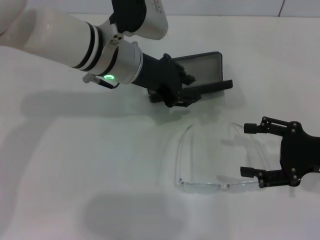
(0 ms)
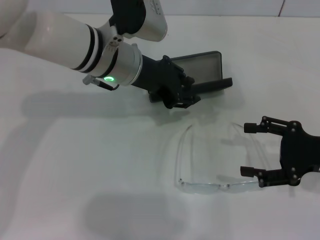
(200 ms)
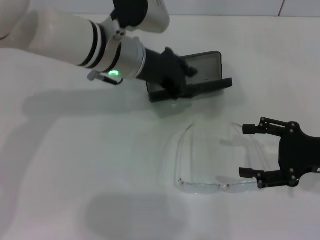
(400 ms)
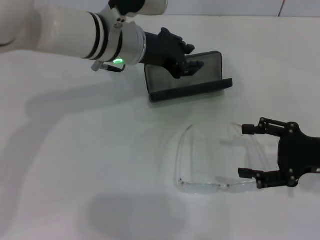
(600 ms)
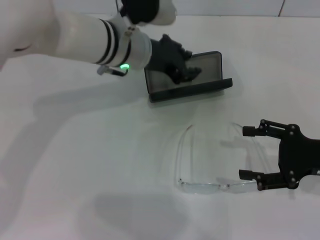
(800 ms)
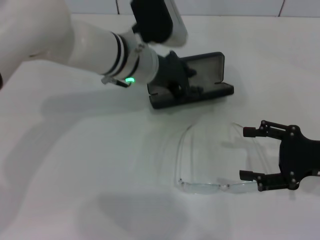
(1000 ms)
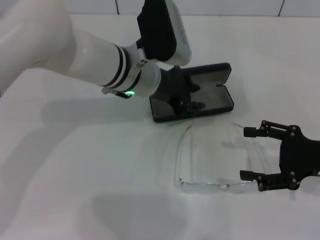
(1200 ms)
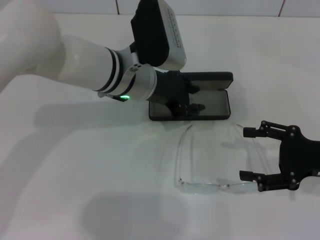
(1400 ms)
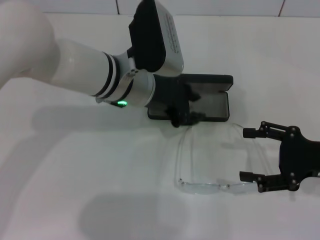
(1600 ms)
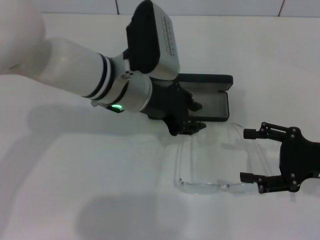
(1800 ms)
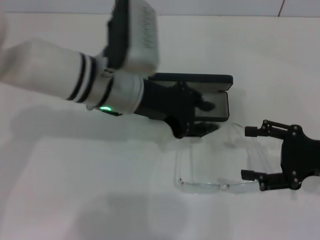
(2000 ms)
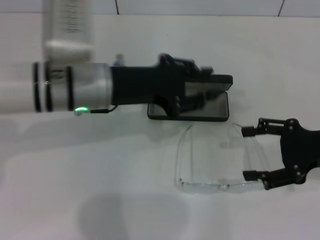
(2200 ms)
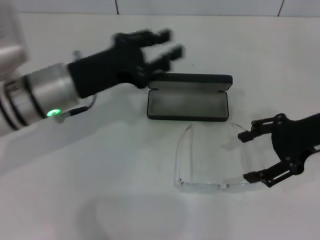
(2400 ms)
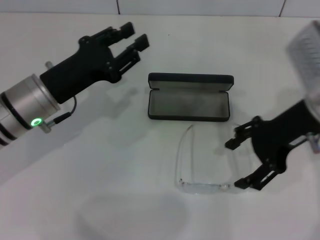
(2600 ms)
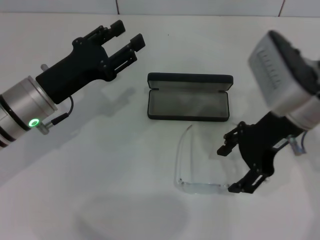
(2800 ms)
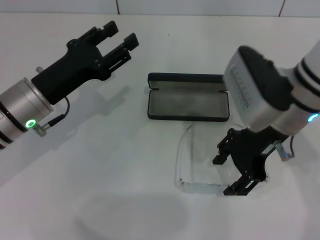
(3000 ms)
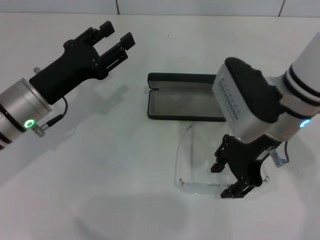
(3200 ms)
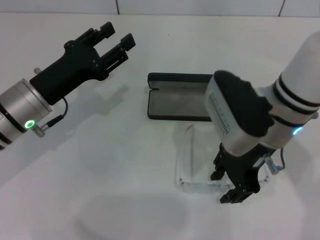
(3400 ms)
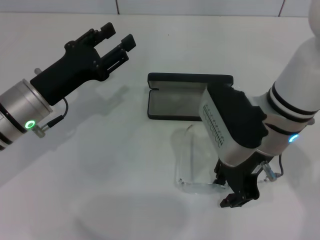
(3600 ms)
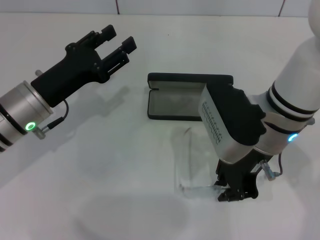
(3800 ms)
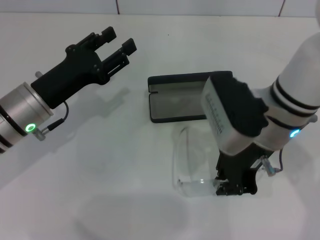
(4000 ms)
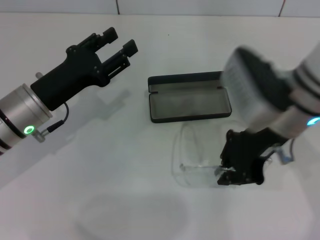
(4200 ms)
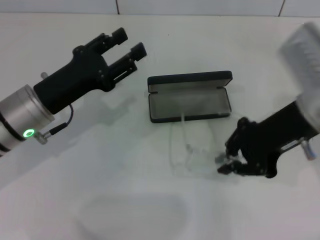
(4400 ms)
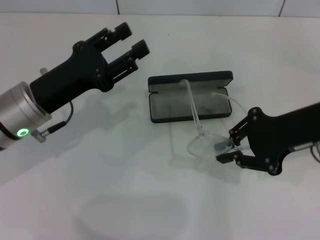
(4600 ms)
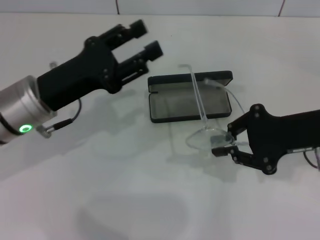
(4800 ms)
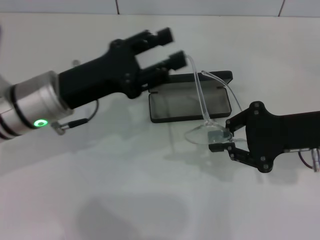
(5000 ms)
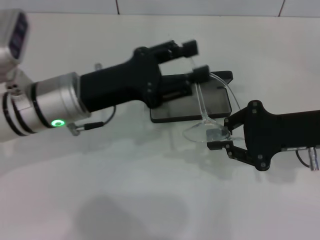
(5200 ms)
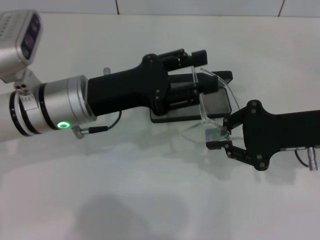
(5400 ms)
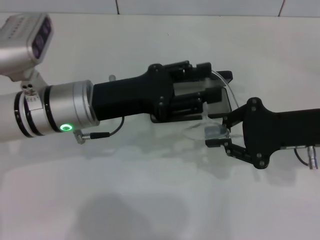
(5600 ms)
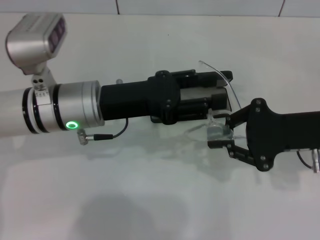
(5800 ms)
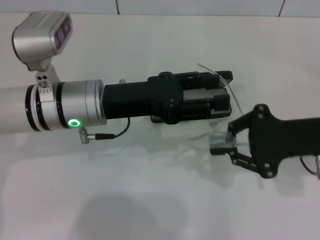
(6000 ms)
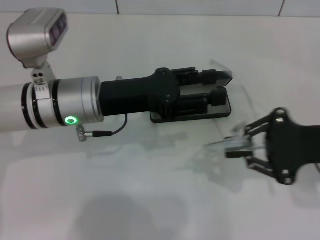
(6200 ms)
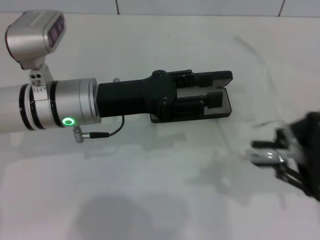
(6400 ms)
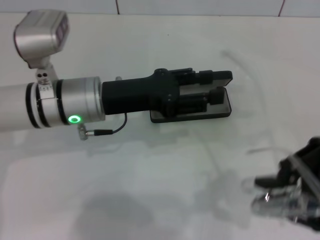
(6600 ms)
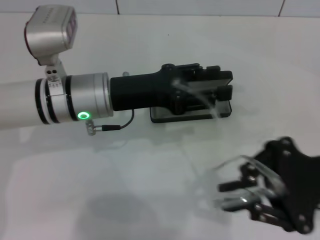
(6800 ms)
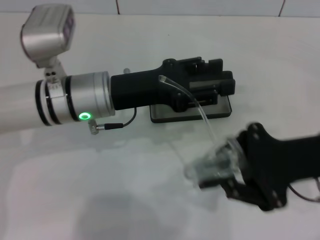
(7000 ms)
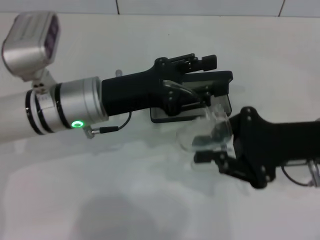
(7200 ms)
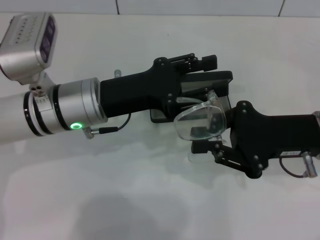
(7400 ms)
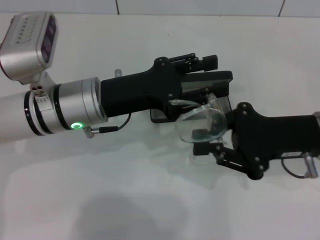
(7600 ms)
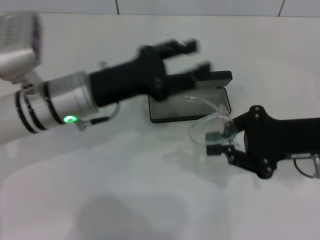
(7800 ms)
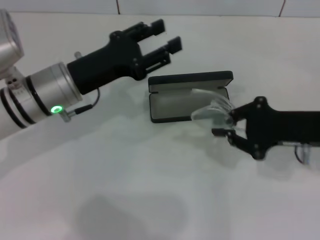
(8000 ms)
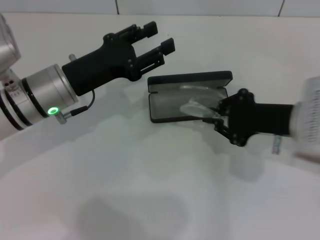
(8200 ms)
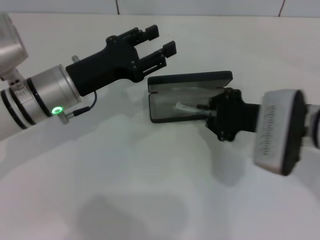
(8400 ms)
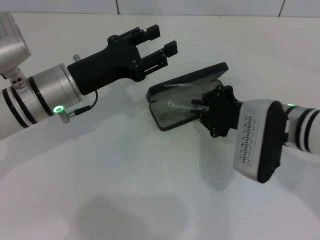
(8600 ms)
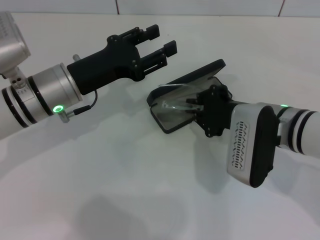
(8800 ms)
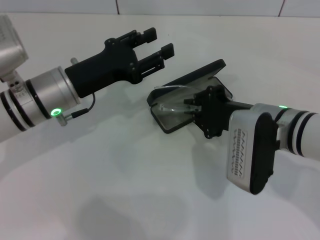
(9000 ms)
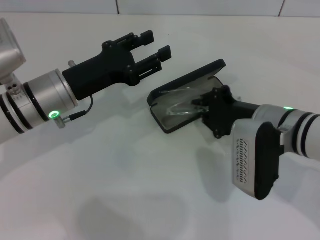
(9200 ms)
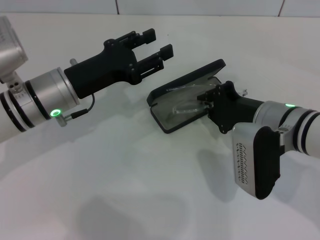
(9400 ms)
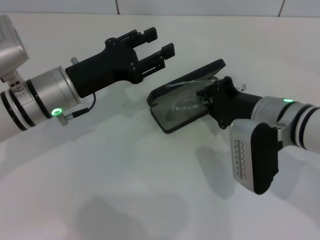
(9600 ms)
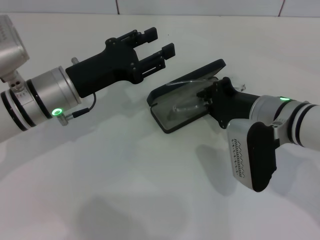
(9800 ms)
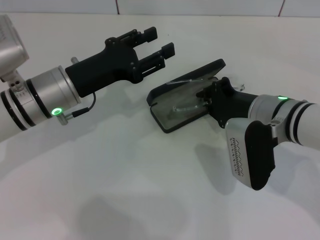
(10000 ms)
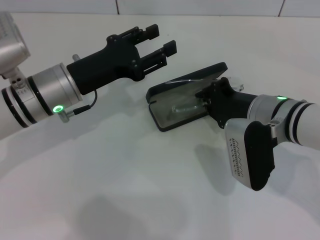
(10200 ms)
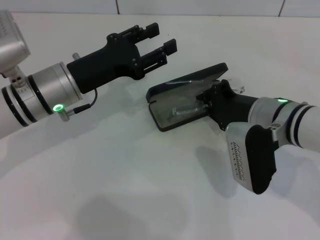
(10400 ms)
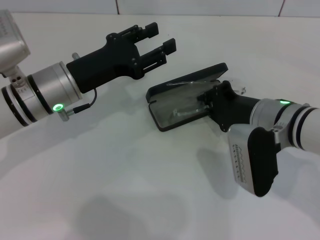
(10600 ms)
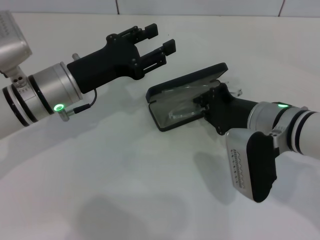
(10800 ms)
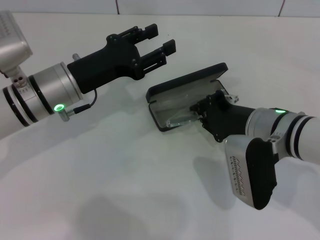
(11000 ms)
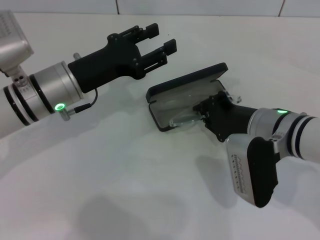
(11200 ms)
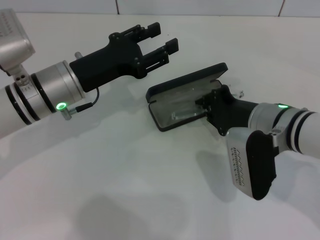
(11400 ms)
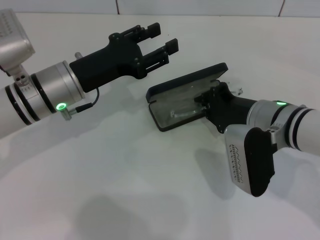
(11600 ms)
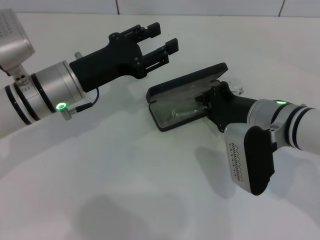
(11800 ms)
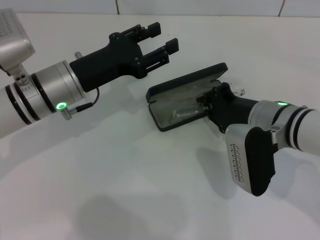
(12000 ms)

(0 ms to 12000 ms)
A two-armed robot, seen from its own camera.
Step, 1800 ms - 3800 ms: Grab the eyeglass frame with your right hand.
Step, 4000 ms - 7600 ms: Lift the glasses with your right hand.
0 ms - 1600 ms: The grippers move only a little.
1600 ms - 3000 ms: The right gripper travels to the left, upward and forward by approximately 20 cm, while the left gripper moves to the left, approximately 15 cm.
3000 ms - 4400 ms: The right gripper ends up about 5 cm from where it was, and closes.
4400 ms - 6000 ms: The grippers both shift to the right by about 5 cm.
7600 ms - 9000 ms: The right gripper goes roughly 5 cm to the left, while the left gripper moves about 5 cm.
9000 ms - 12000 ms: There are only small adjustments of the grippers.

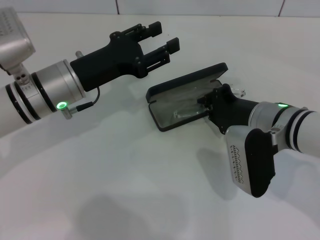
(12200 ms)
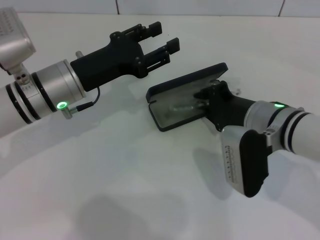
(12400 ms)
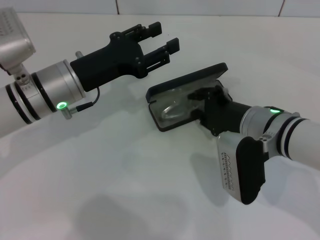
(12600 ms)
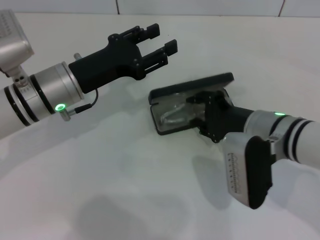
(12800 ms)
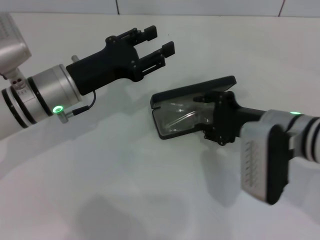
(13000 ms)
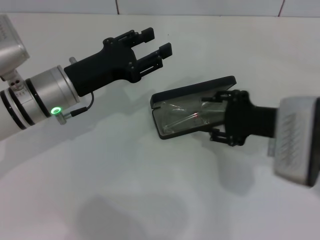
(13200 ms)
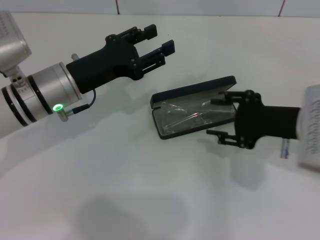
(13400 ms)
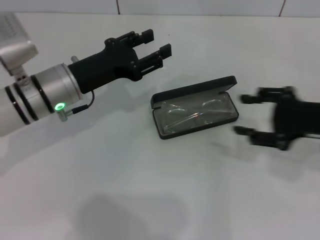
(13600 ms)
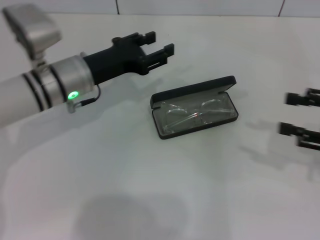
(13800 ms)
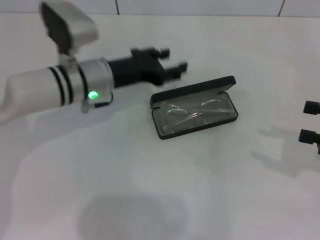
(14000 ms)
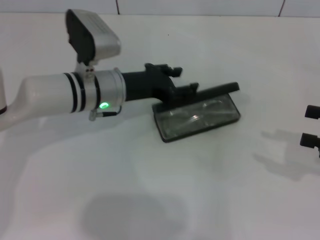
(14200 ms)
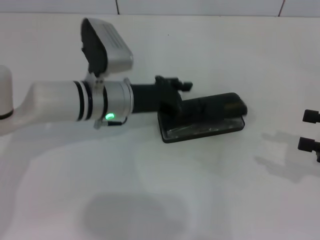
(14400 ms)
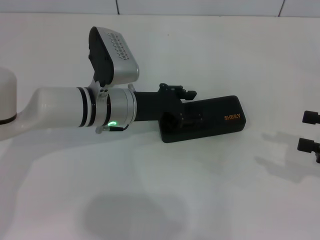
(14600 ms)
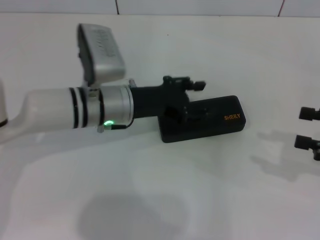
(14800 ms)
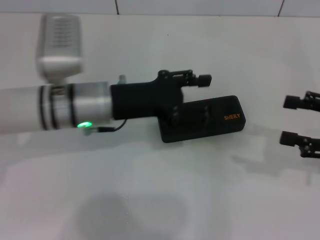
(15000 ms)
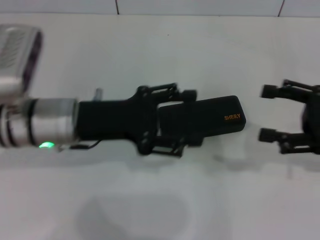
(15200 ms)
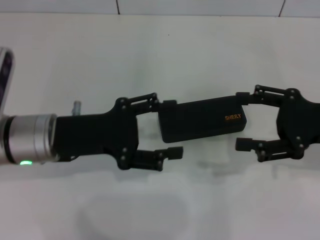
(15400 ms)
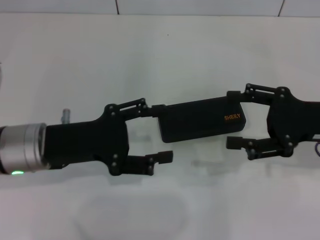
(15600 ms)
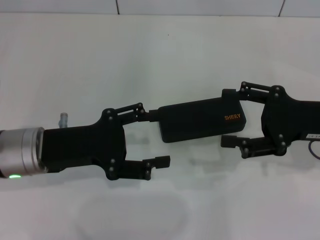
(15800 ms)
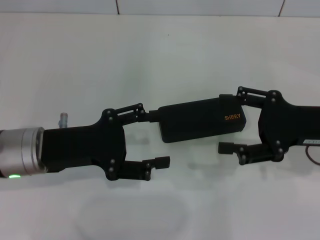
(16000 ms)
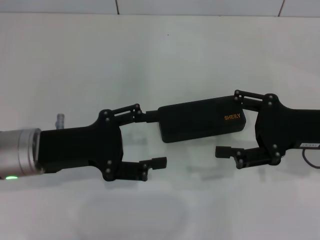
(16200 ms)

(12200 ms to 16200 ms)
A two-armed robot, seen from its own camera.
Step, 13200 ms - 14400 ms: Close the glasses case with your left hand.
12200 ms - 13600 ms: The right gripper is displaced to the right and upward by roughly 10 cm, and opens its fingers.
13600 ms - 14800 ms: The two grippers go approximately 10 cm to the right.
14800 ms - 16200 ms: The left gripper heads to the left and backward, covering about 15 cm, while the right gripper moves to the left, about 10 cm.
